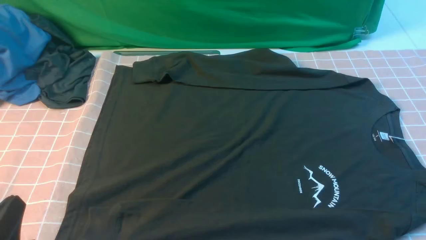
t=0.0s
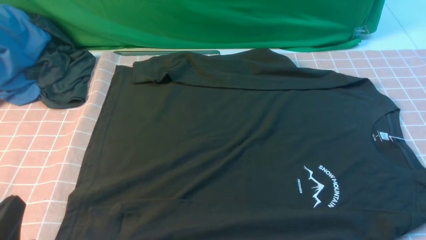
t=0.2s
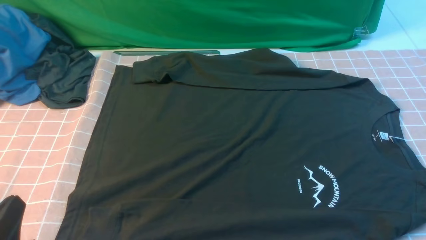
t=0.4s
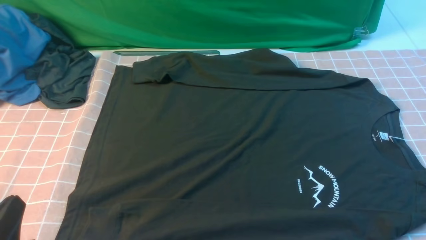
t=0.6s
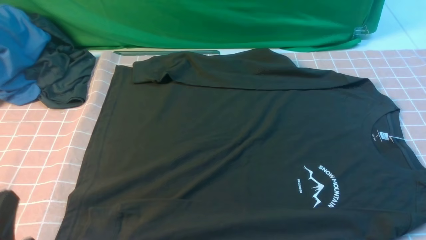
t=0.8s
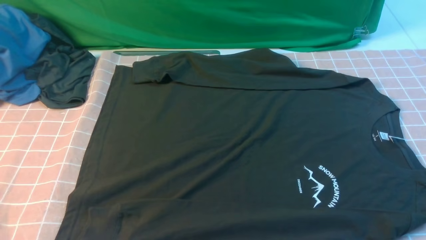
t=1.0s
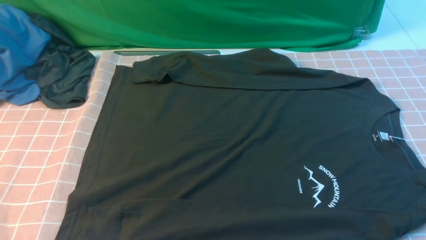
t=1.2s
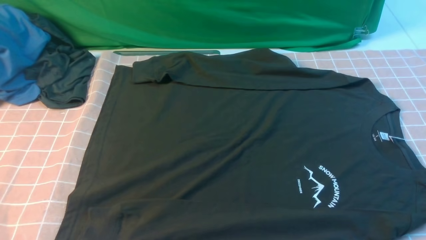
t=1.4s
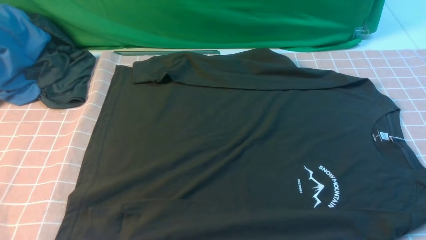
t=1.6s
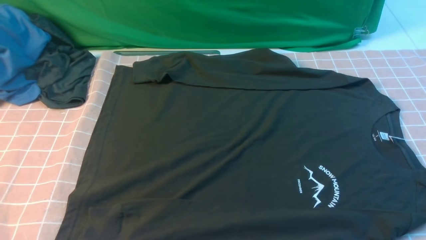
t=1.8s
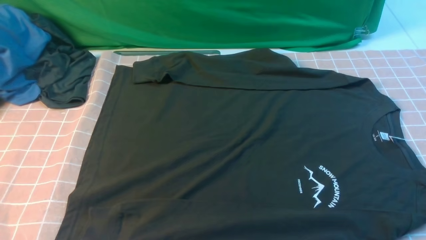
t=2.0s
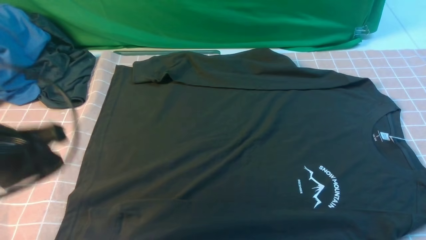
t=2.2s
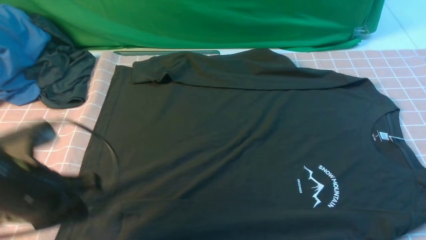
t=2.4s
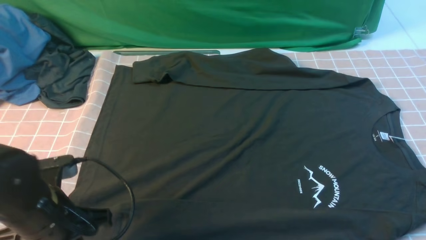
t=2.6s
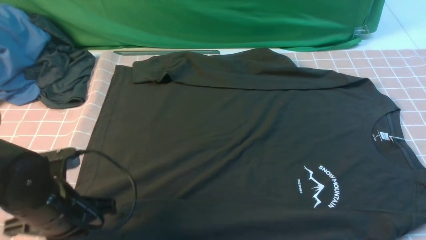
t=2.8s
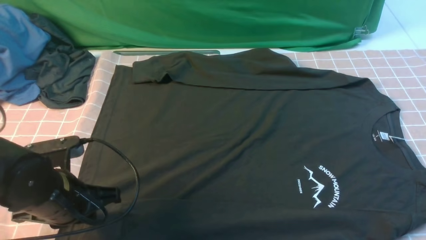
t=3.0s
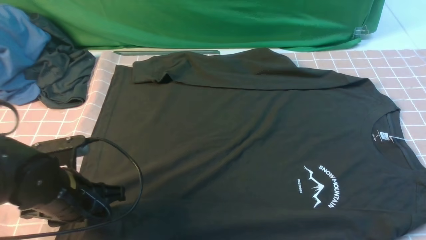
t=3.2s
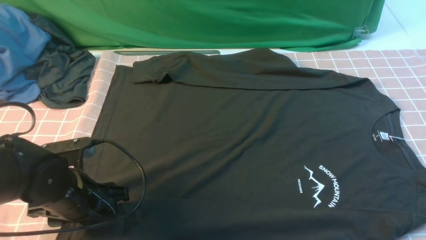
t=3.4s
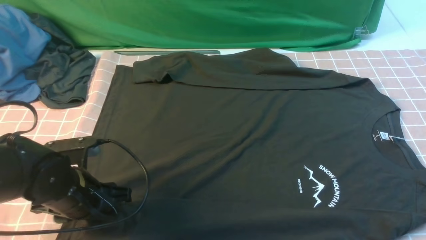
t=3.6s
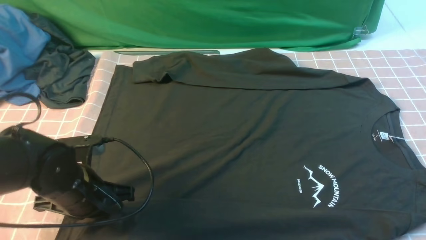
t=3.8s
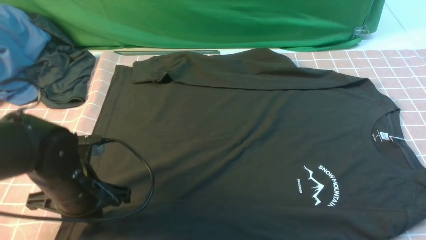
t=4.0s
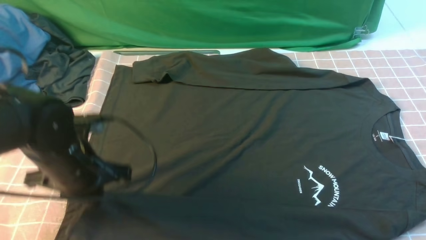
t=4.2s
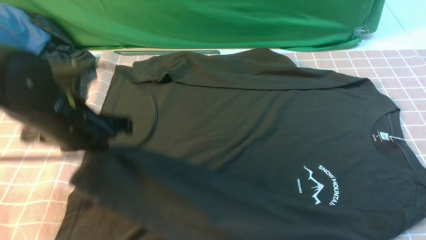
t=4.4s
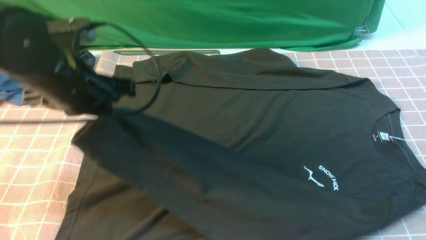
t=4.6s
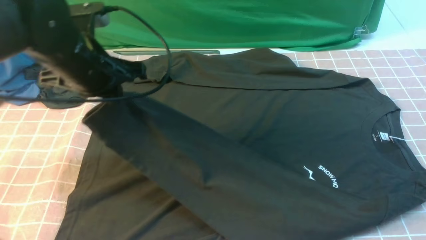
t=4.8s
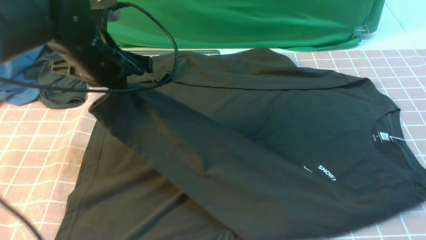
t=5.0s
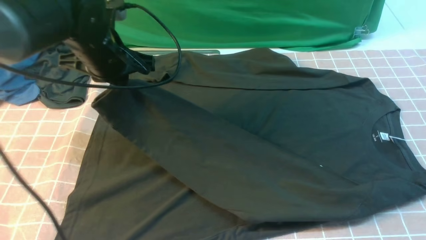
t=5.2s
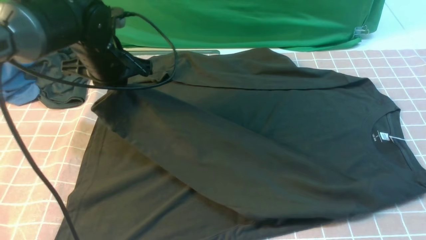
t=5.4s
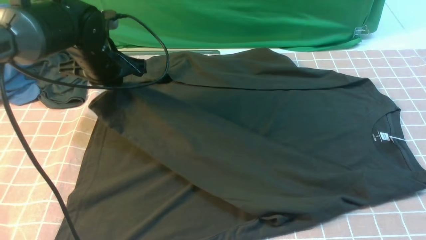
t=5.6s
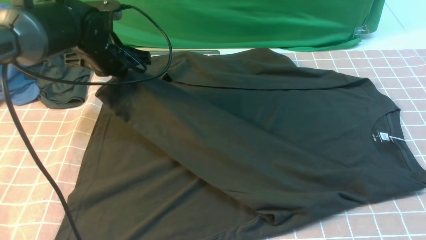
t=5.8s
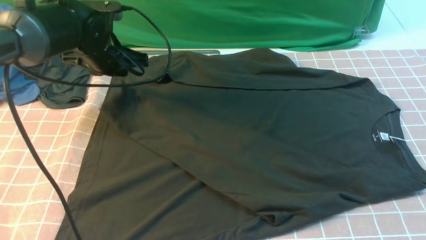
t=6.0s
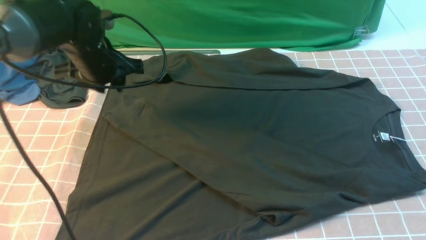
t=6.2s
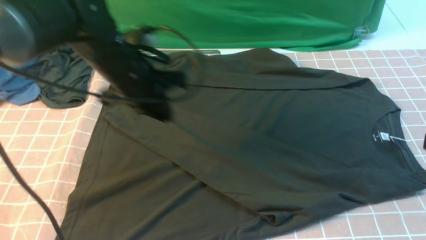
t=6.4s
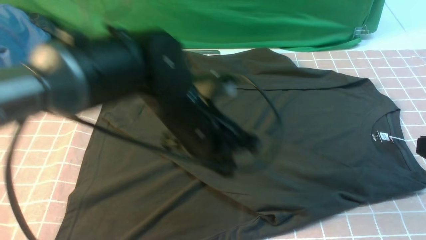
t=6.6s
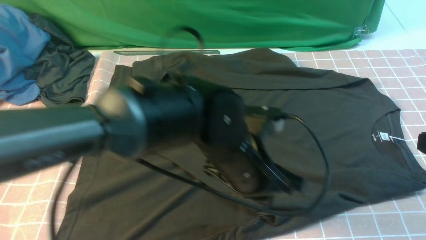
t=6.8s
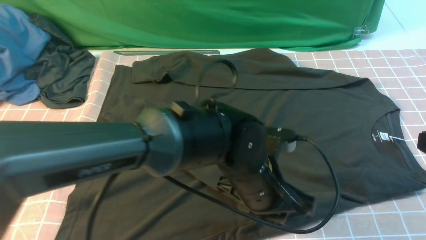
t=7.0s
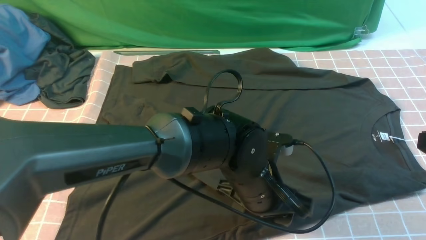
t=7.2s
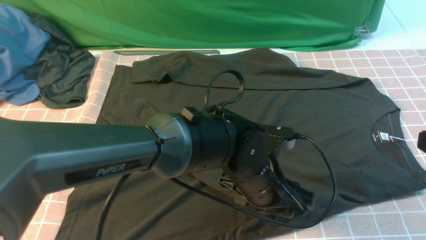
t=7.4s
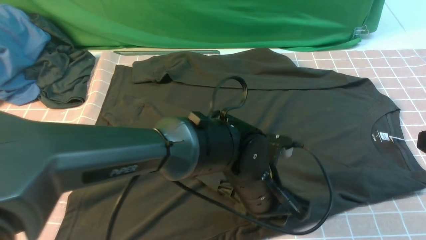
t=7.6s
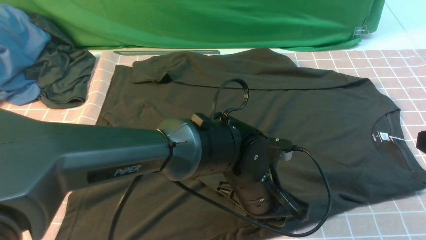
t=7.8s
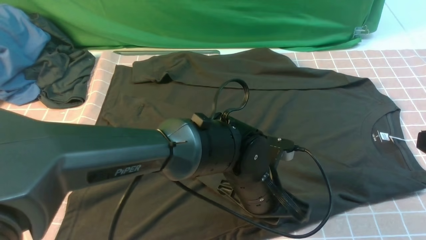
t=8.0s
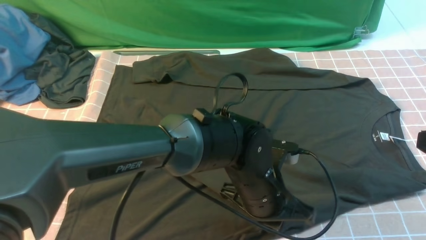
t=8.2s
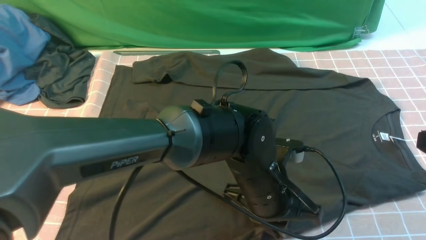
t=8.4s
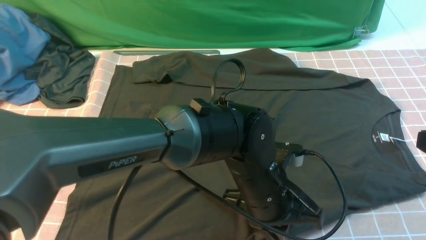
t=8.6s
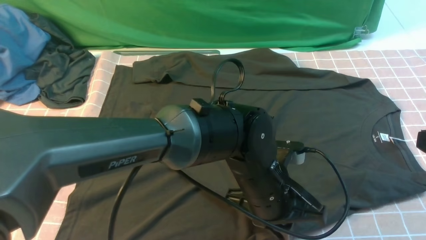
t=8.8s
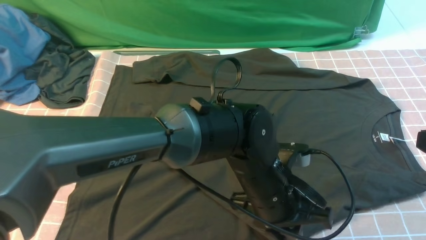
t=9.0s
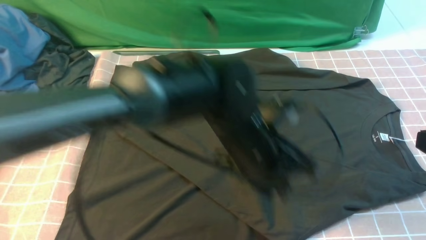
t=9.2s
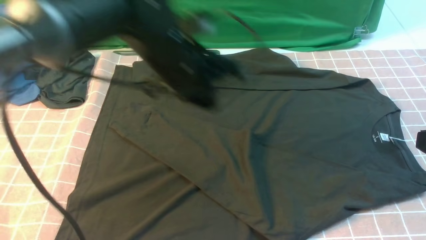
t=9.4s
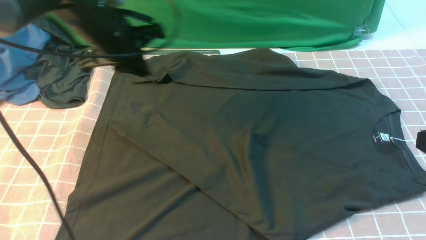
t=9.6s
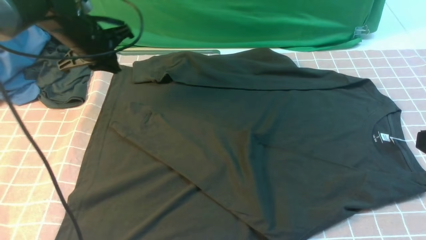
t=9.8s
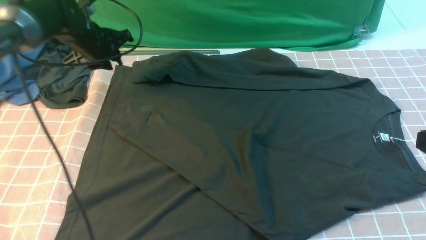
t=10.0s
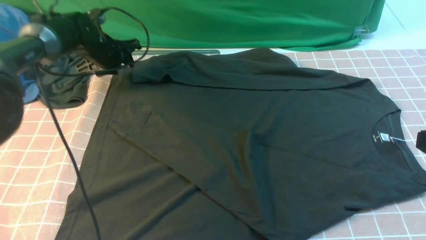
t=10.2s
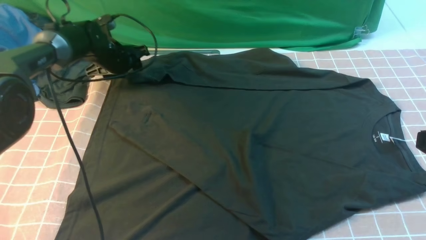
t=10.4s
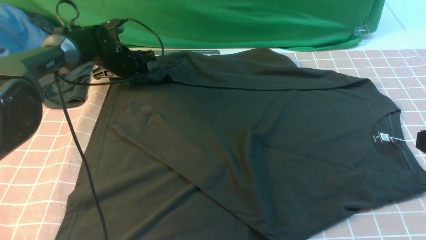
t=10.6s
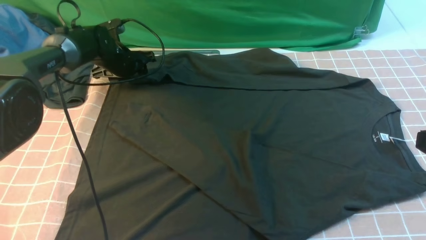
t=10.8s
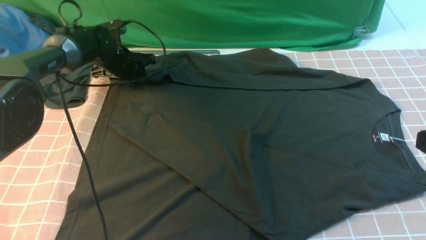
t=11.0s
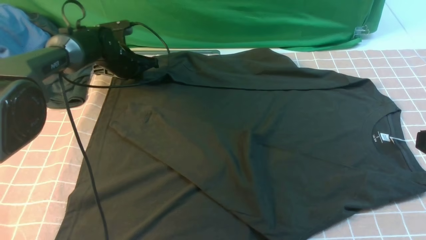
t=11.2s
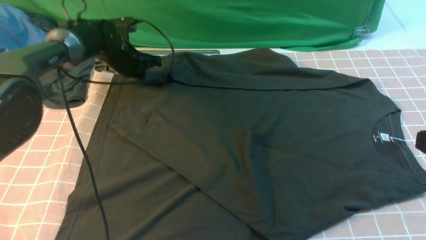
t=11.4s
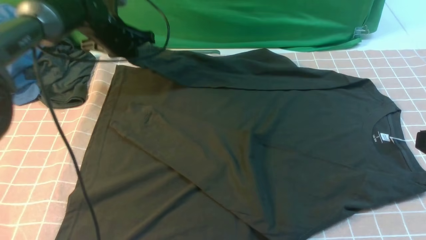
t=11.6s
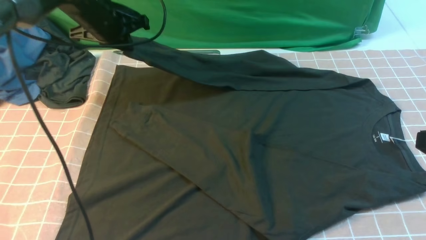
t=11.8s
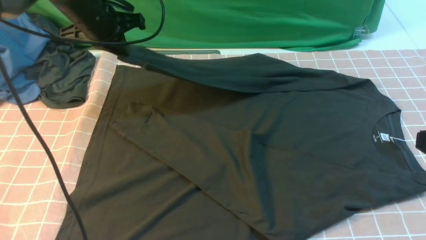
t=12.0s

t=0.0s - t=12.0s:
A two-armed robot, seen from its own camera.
Step, t=0.0s - t=4.0s: use the left arm to clamp the cuff closest to it.
Step, t=4.2s - t=6.0s: use the left arm to drag and place the cuff at the centered position on the left edge of the fabric.
Step, t=6.2s - t=11.4s: use the left arm to clamp the cuff farthest from it.
t=0.0s - t=1.6s: The left gripper moves upward, some 10 cm.
t=1.6s - t=3.0s: The left gripper is displaced forward and downward by some 20 cm, and opens its fingers. Meanwhile the right gripper travels upward and forward by approximately 10 cm, and closes up.
t=3.0s - t=4.4s: The left gripper goes roughly 10 cm upward and forward, and opens and closes again.
t=4.4s - t=6.0s: The left gripper is displaced forward by roughly 15 cm, and opens its fingers.
t=6.0s - t=7.6s: The left gripper heads to the right and backward, covering about 30 cm, and opens its fingers.
t=7.6s - t=9.0s: The left gripper closes.
t=9.0s - t=10.4s: The left gripper shifts roughly 40 cm to the left and forward, and opens up.
t=10.4s - t=12.0s: The left gripper travels upward and backward by approximately 15 cm, and closes up.

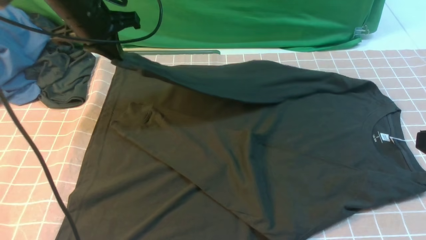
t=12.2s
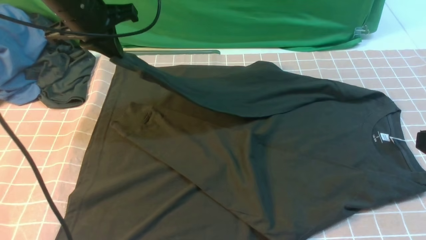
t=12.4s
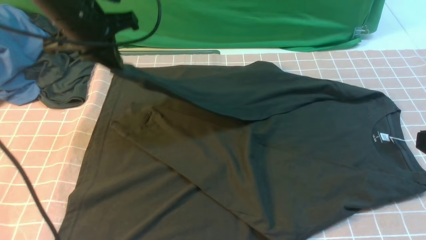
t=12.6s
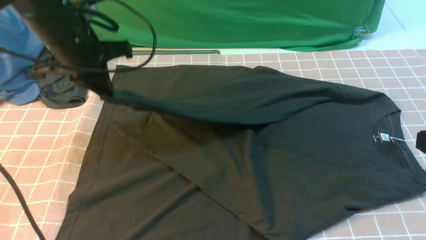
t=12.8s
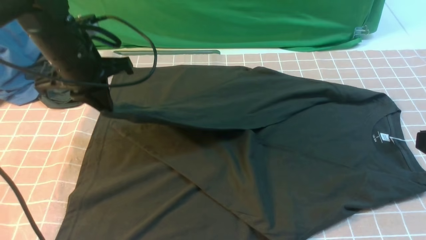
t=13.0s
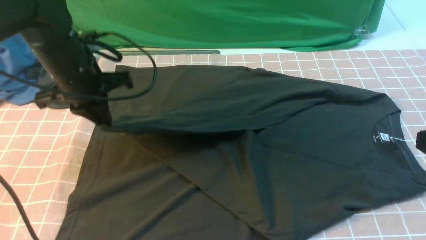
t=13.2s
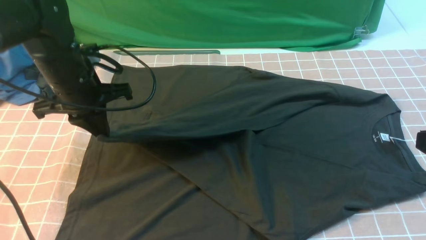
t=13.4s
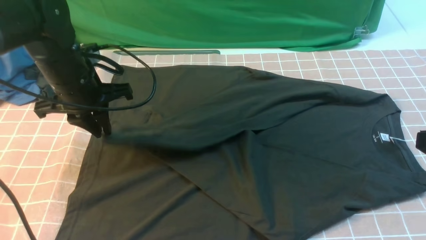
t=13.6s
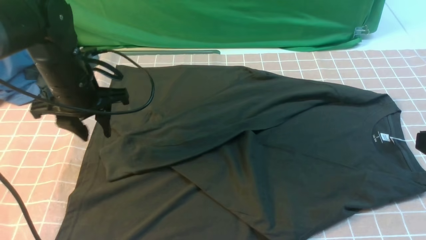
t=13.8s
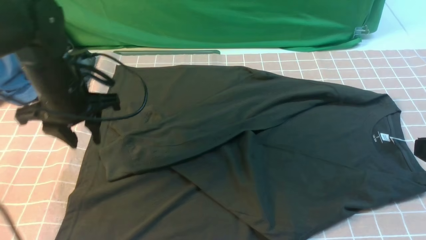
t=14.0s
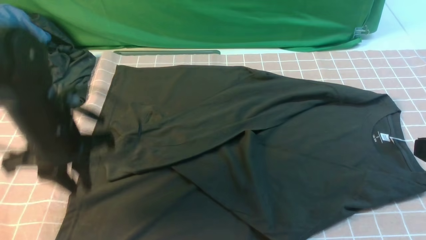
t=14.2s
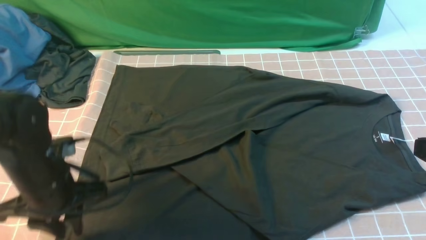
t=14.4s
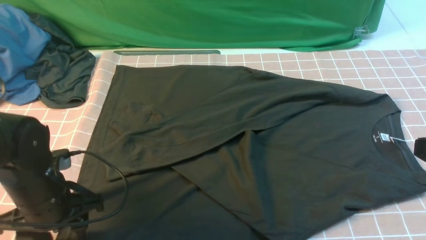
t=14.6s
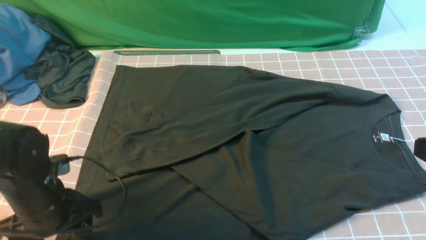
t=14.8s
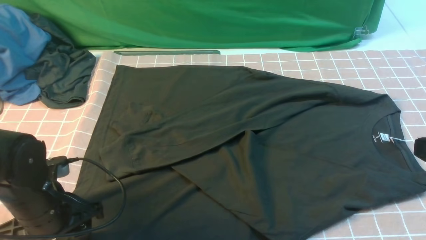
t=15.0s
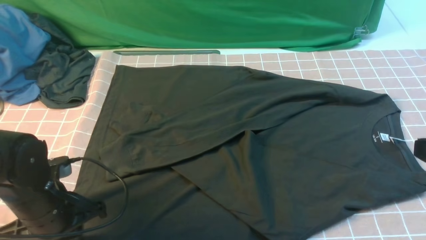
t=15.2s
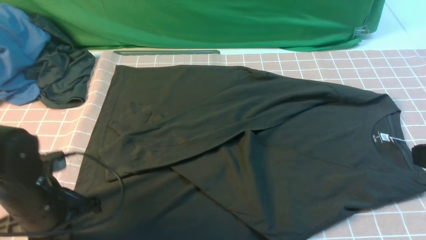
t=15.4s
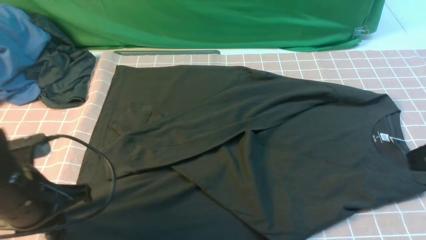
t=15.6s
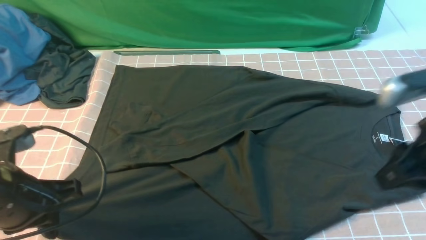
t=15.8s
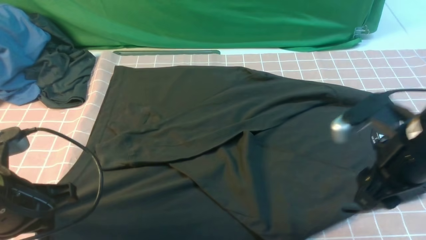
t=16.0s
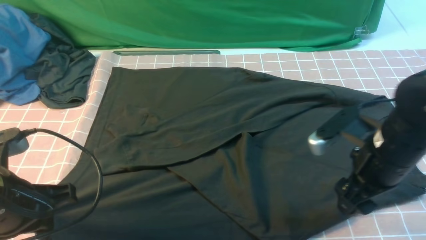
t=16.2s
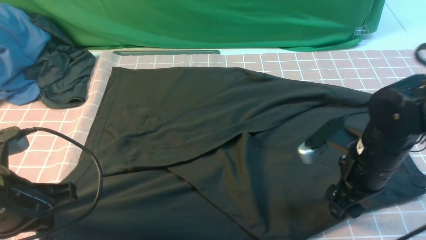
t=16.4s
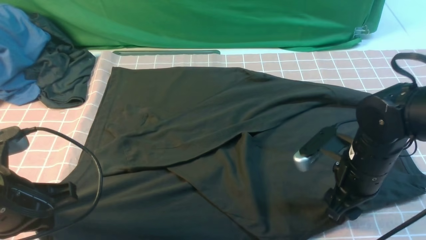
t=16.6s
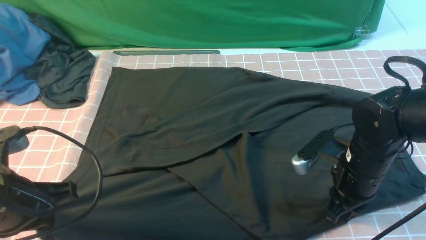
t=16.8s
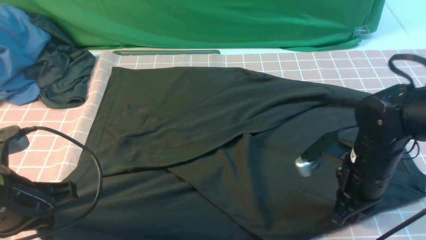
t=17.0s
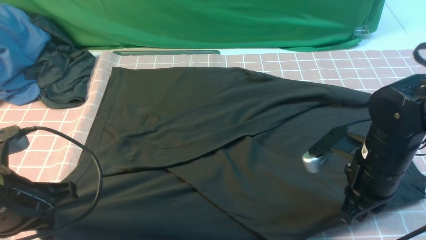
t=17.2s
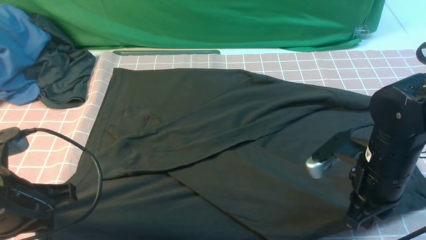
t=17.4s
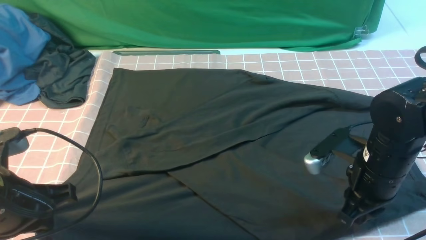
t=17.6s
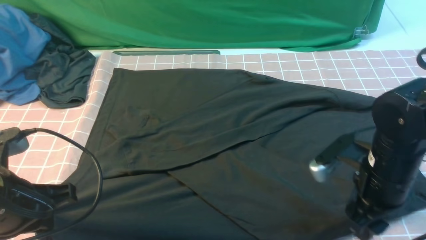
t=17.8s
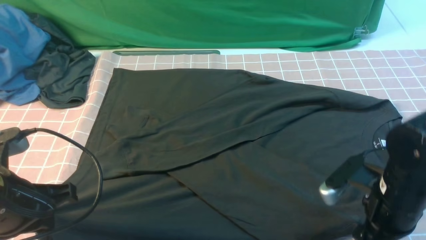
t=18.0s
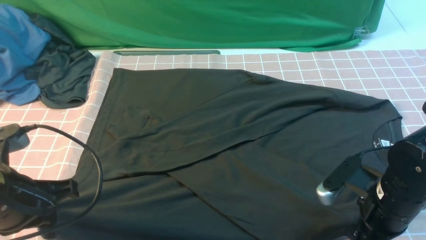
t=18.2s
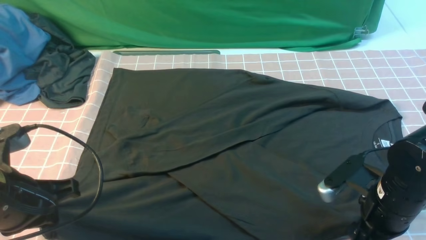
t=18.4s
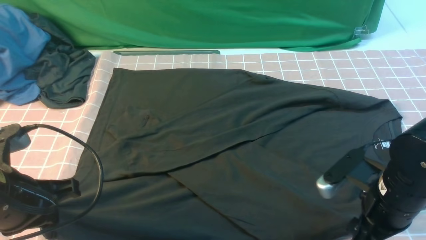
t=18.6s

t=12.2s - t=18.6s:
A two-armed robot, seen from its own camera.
Step, t=12.2s - t=13.6s: use the left arm to drag and drop the cuff onto the cuff closest to the left arm.
t=12.2s - t=13.8s: The left gripper moves backward and downward, approximately 10 cm, and opens.
t=13.8s - t=15.4s: The left gripper goes roughly 15 cm backward and downward, and closes up.
t=15.4s - t=17.0s: The right gripper is displaced downward, forward and to the left by some 20 cm, and opens, then closes again. Meanwhile the left gripper heads upward, covering about 5 cm.
t=17.0s - t=18.6s: The right gripper moves backward, roughly 5 cm, and opens its fingers.
